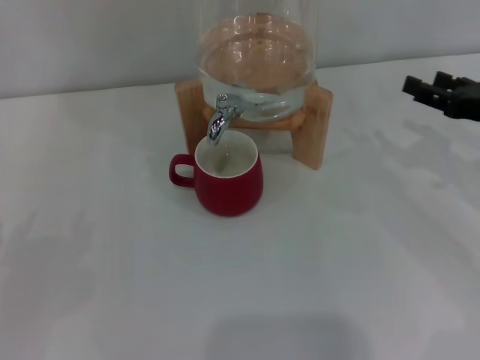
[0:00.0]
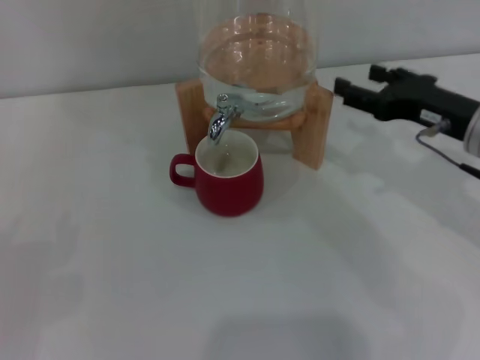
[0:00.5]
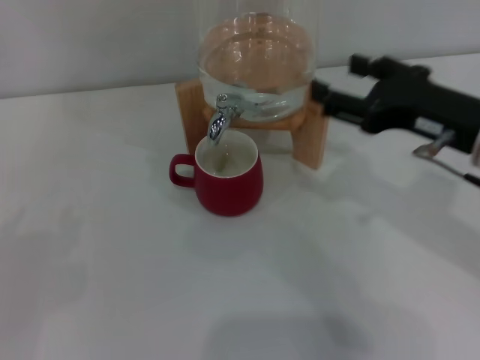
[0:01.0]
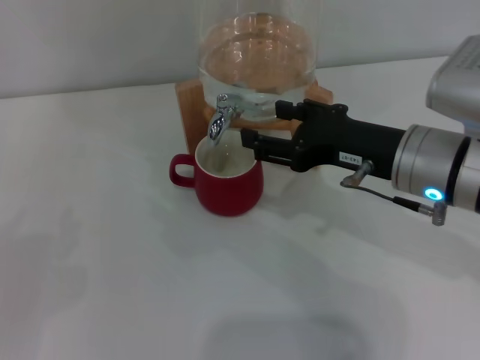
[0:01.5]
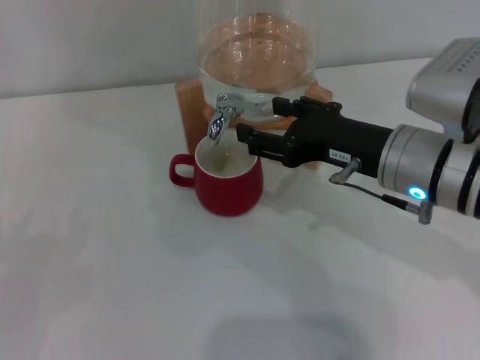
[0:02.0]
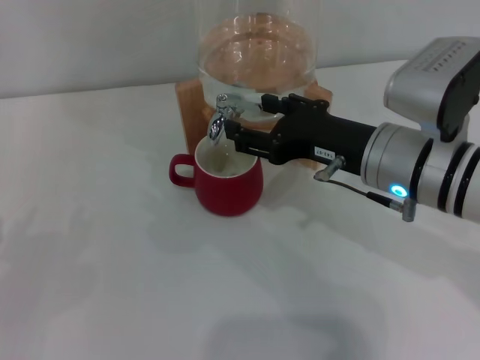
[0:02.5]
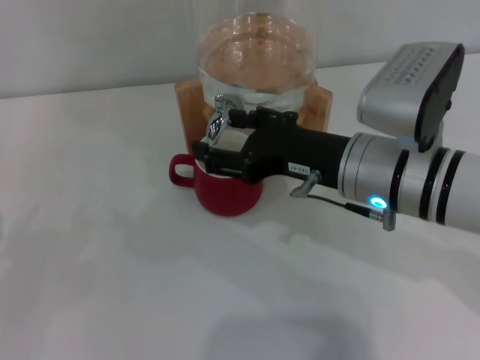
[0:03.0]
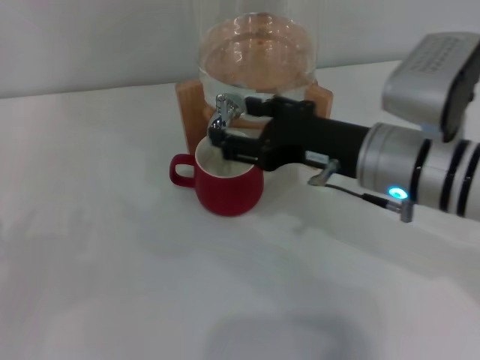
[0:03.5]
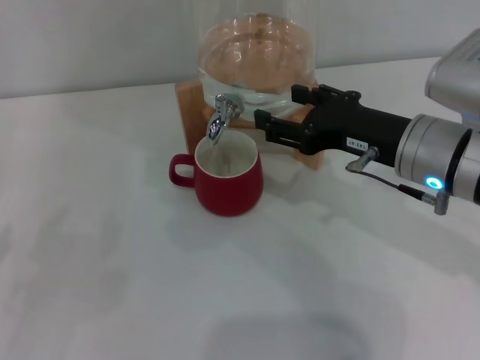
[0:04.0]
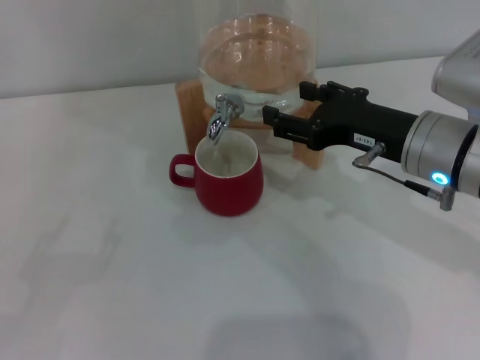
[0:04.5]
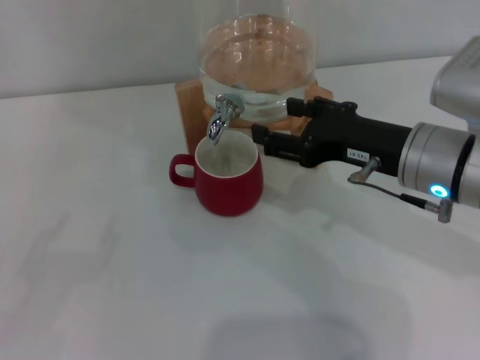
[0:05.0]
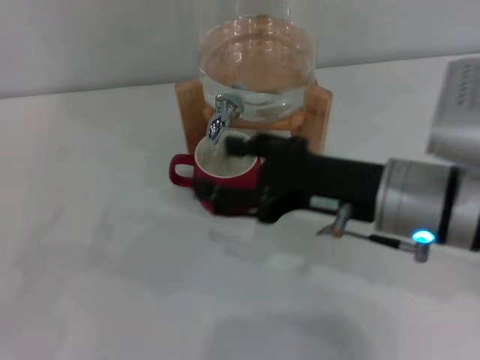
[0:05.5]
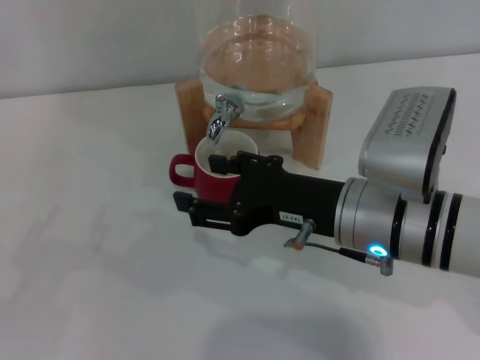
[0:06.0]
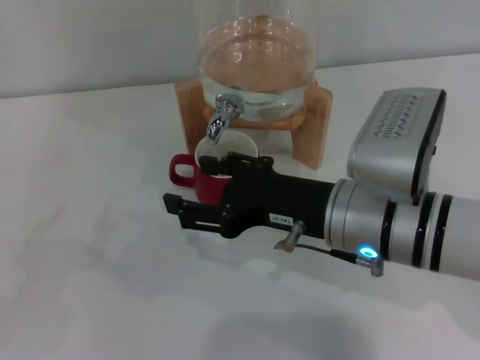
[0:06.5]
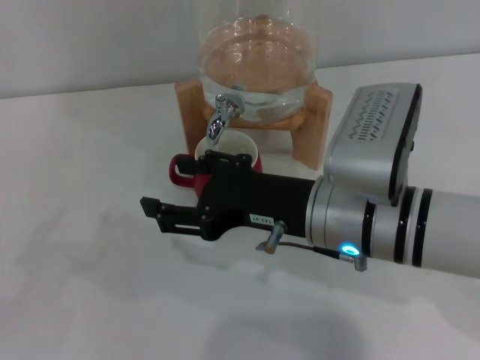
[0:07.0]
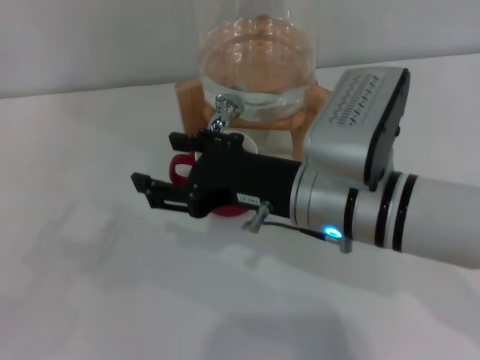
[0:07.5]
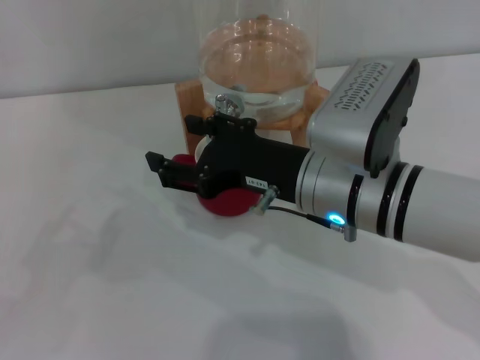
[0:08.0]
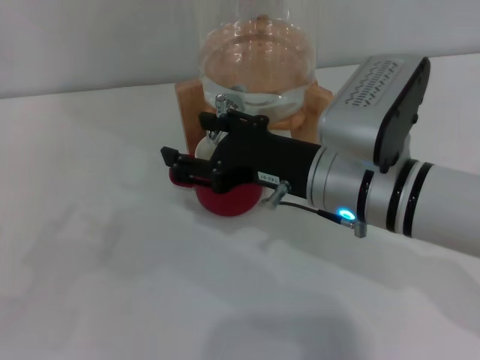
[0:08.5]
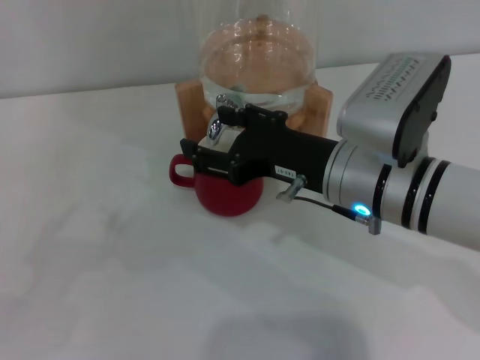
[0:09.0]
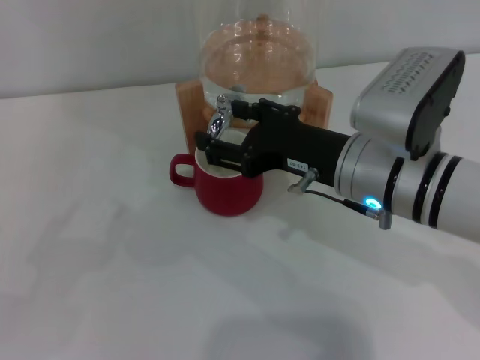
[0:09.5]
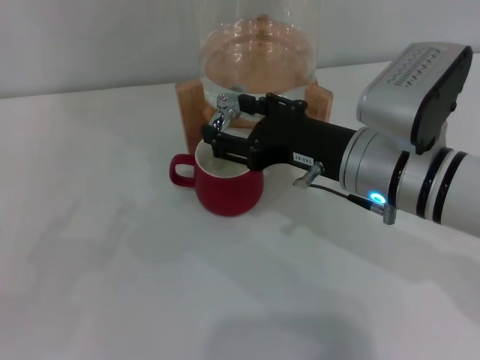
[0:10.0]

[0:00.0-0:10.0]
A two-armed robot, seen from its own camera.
Task of the whole recording: the left gripper pick up the red cup and place it horizontally under the faucet, the right gripper turn on the faucet to fill the cup, and then turn off the faucet.
Step, 0:00.0 to 0:03.0: Open the dispenser valve and fill the cup with water with the right gripper.
0:00.0 to 0:02.0: The right gripper shifts about 15 cm to the left.
0:02.0 to 0:04.0: There are only small adjustments of the grippers.
0:04.0 to 0:06.0: The right gripper heads to the left, covering some 5 cm.
0:06.0 to 0:10.0: The grippers make only small movements.

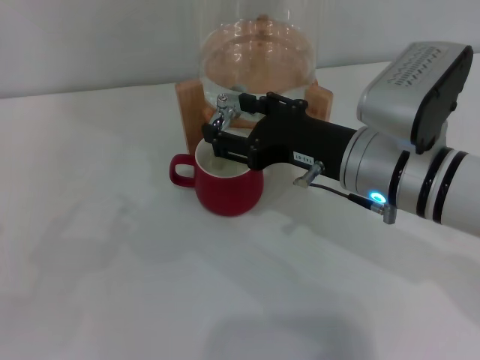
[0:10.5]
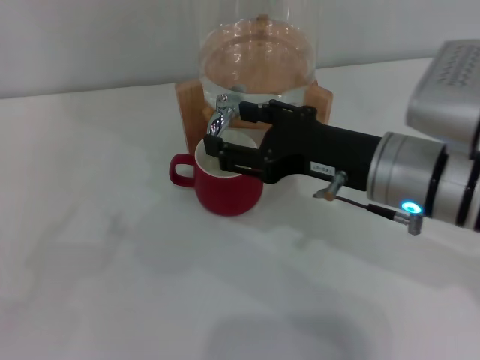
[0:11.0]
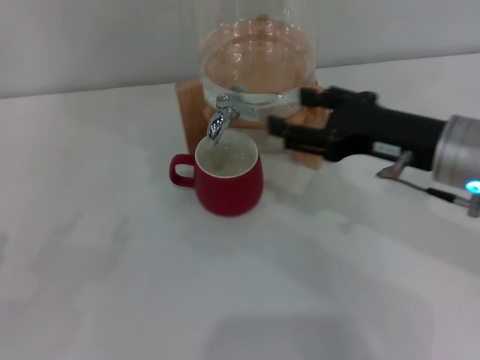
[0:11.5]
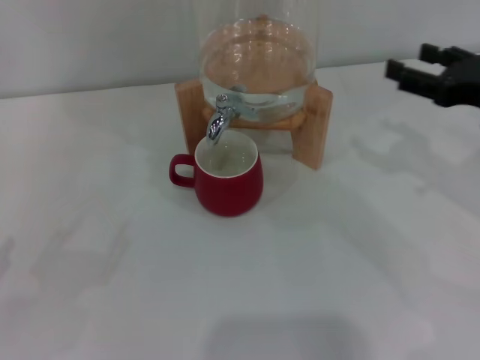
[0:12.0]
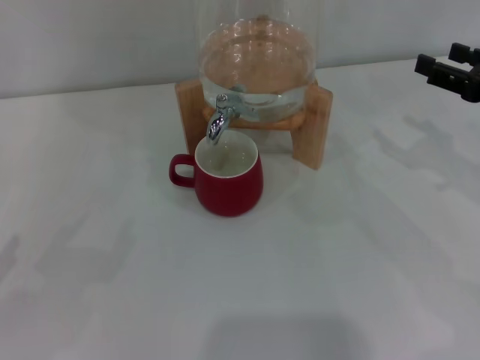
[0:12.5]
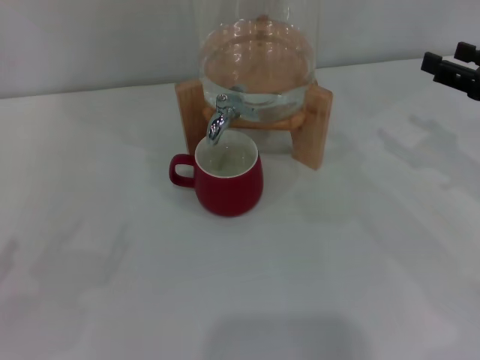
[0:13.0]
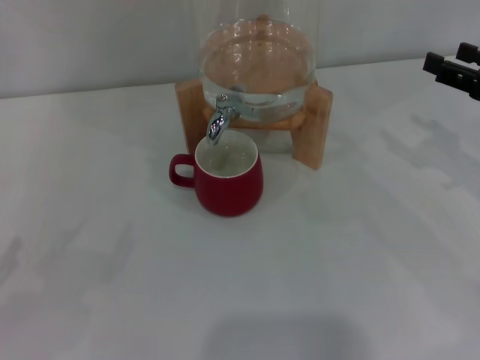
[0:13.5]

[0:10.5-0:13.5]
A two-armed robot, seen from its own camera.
Task of the whole recording: the left gripper pick up the red cup and place it horizontally under the faucet, the right gripper turn on the faucet to fill the cup, and then turn off the faucet.
0:10.5 to 0:12.0: The right gripper moves to the right, approximately 15 cm.
0:12.0 to 0:13.5: There are only small adjustments of the grippers.
